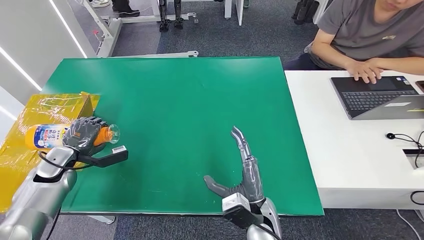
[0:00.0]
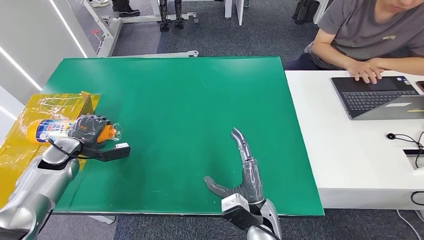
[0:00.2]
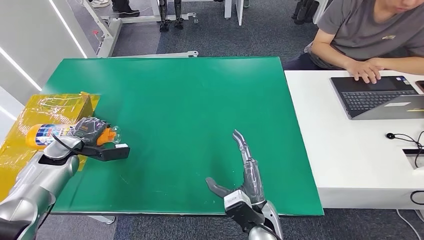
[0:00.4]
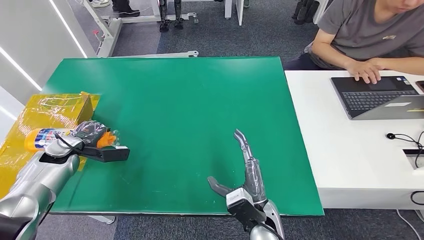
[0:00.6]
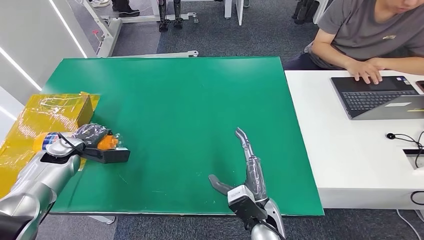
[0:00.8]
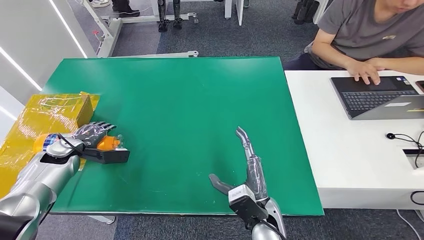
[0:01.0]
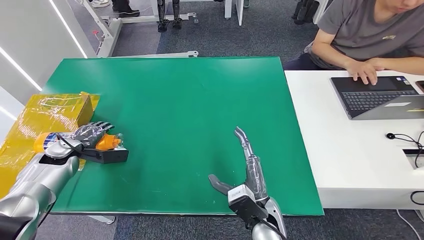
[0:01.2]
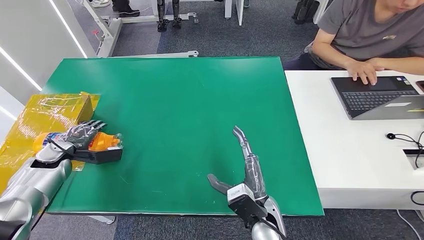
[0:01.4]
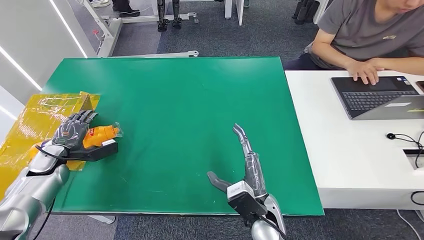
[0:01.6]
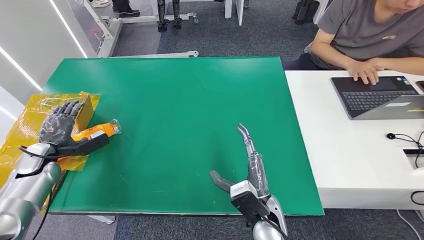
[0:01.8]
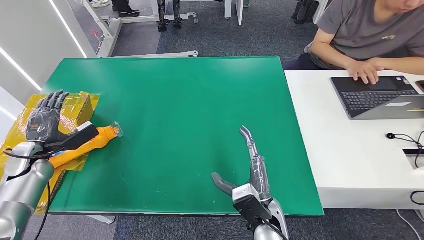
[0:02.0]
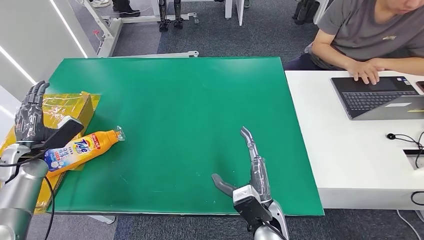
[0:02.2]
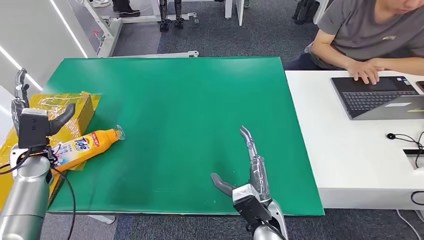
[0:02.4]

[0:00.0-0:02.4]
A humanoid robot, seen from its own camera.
Step, 0:00.0 to 0:02.2: Turn the bottle to the front side.
0:01.2 to 0:02.4: The left hand changes place by some 5 cm.
